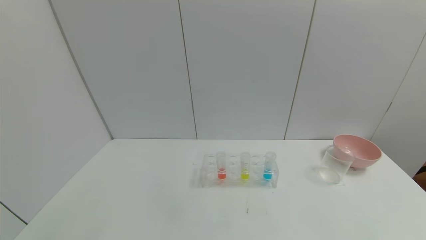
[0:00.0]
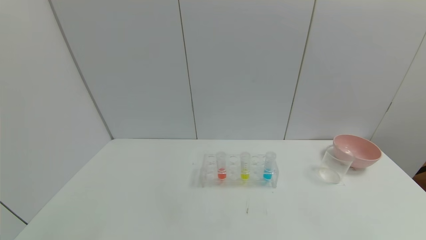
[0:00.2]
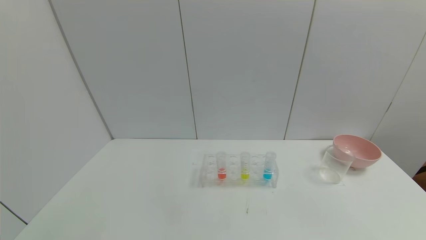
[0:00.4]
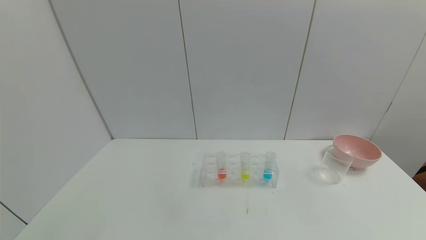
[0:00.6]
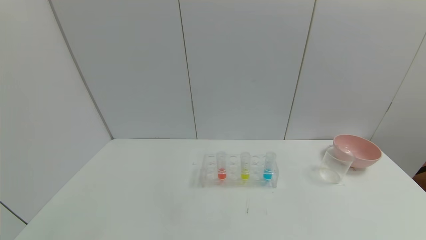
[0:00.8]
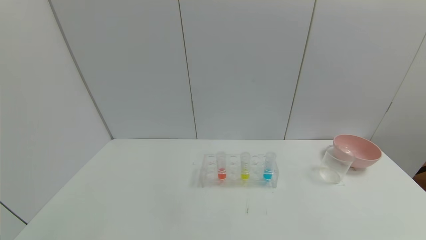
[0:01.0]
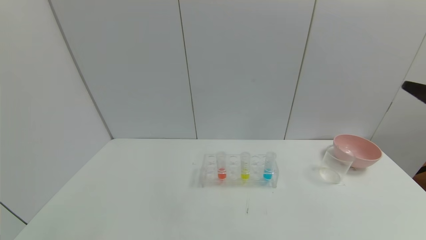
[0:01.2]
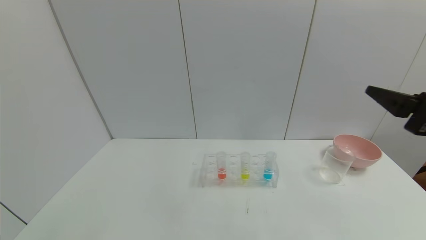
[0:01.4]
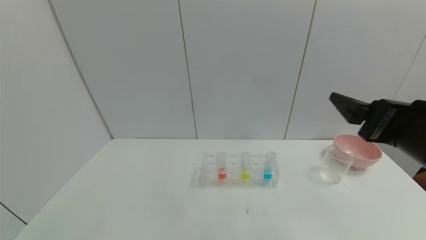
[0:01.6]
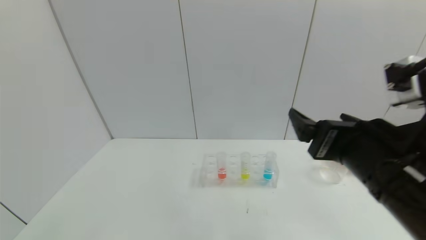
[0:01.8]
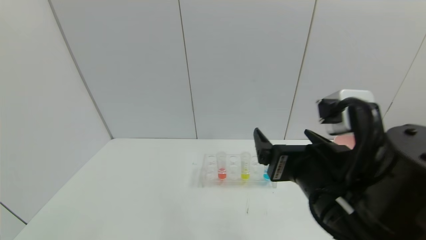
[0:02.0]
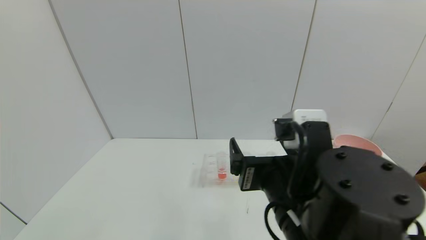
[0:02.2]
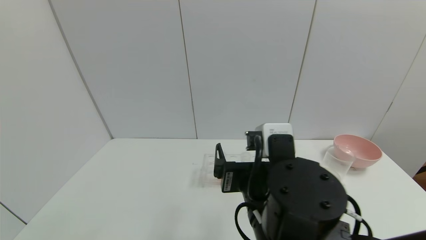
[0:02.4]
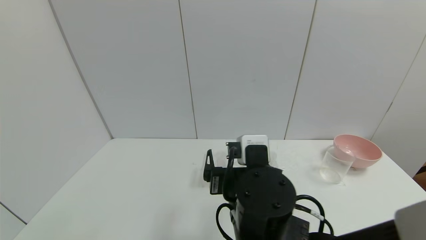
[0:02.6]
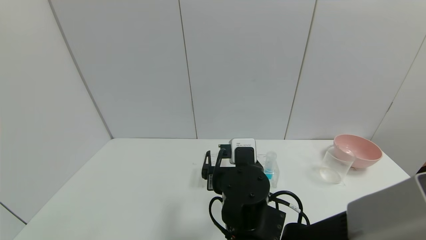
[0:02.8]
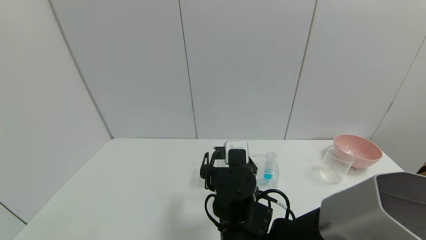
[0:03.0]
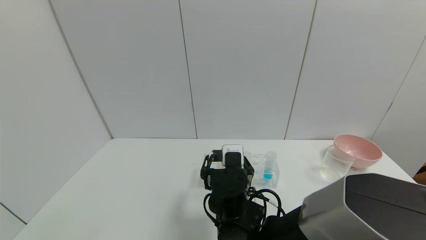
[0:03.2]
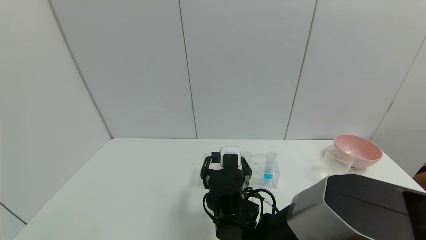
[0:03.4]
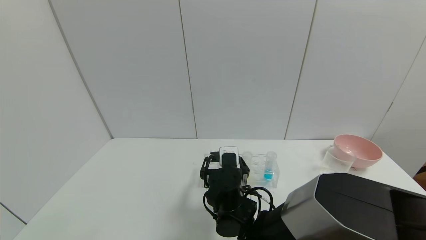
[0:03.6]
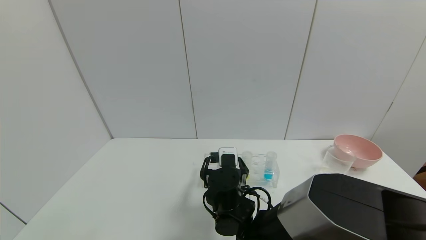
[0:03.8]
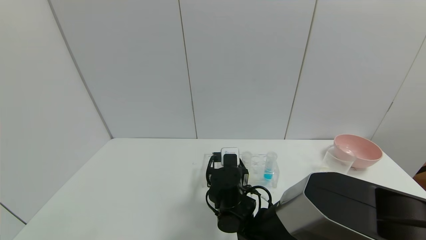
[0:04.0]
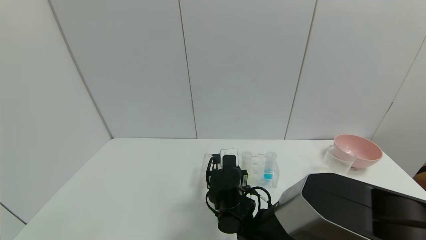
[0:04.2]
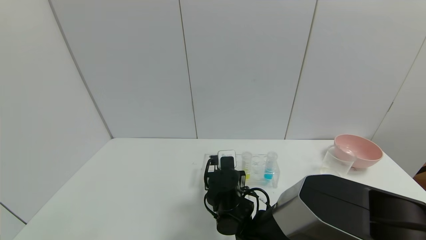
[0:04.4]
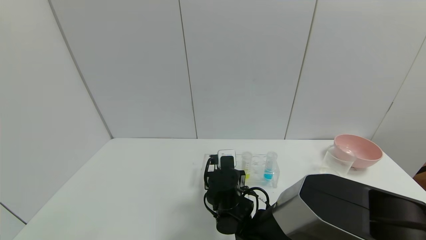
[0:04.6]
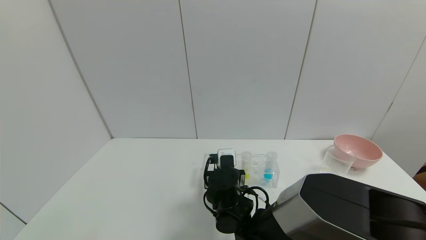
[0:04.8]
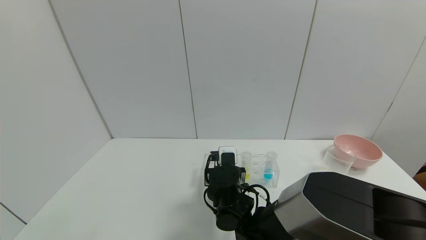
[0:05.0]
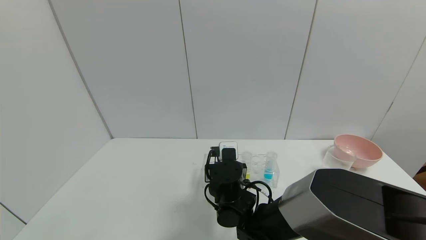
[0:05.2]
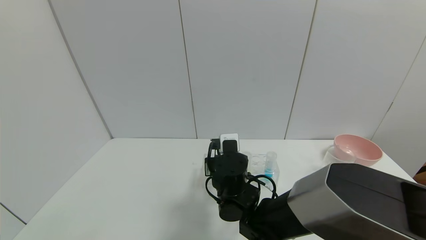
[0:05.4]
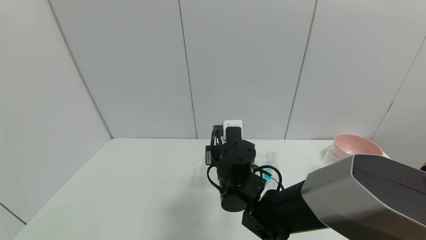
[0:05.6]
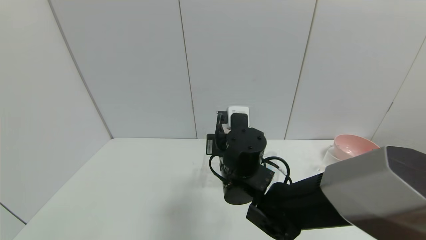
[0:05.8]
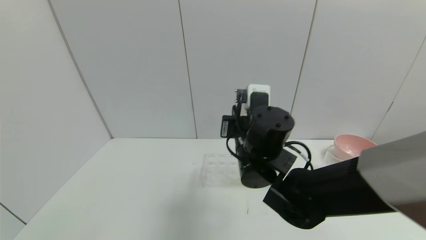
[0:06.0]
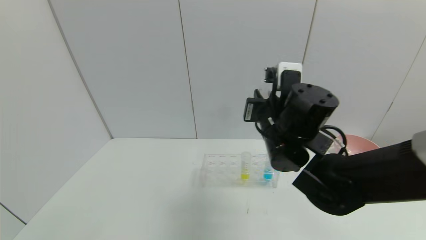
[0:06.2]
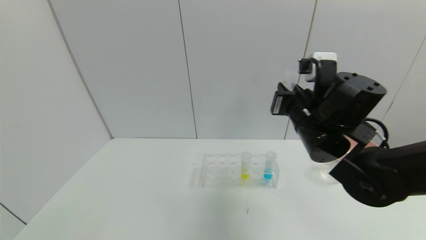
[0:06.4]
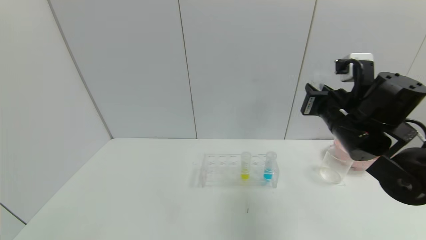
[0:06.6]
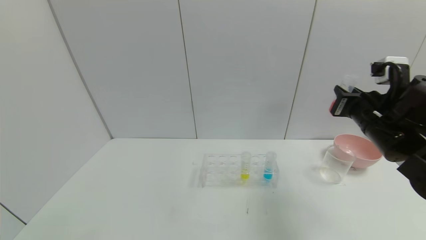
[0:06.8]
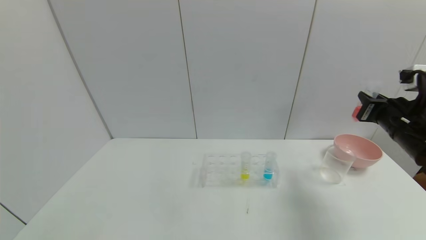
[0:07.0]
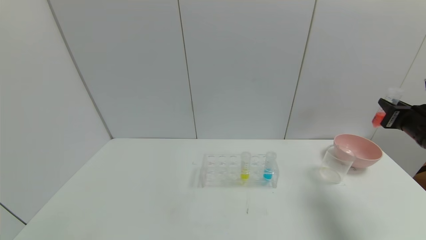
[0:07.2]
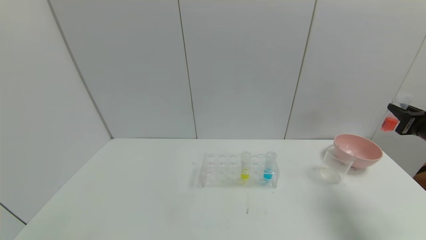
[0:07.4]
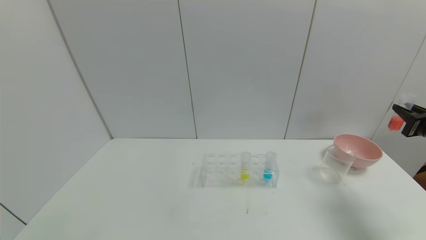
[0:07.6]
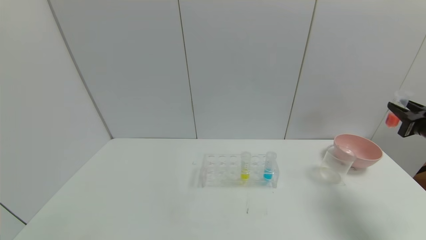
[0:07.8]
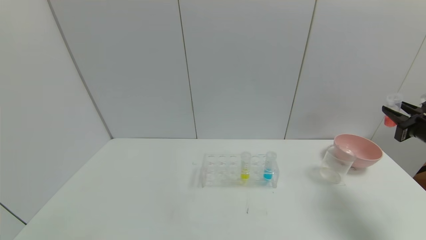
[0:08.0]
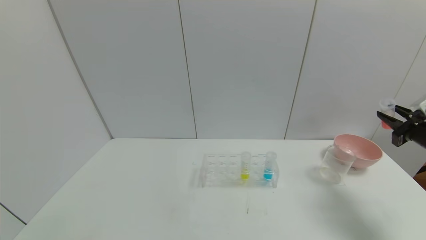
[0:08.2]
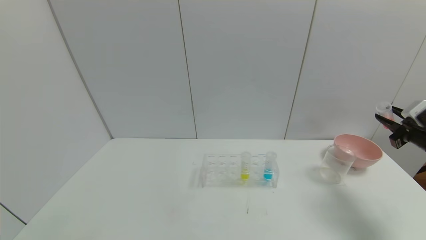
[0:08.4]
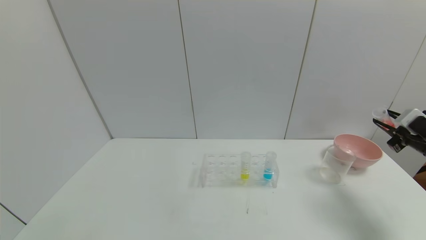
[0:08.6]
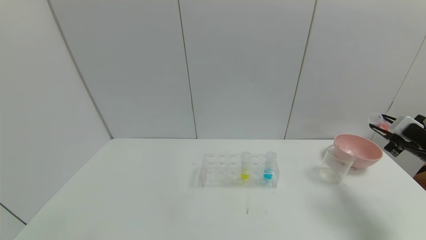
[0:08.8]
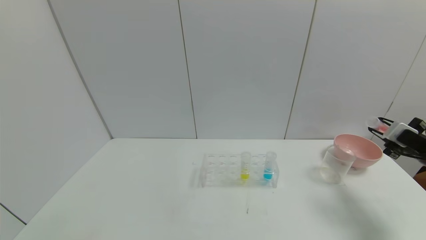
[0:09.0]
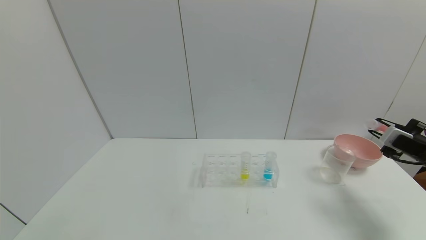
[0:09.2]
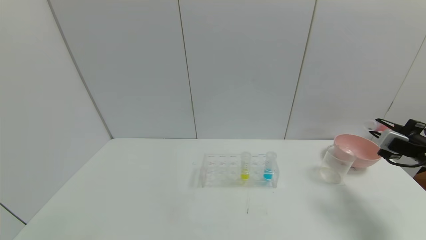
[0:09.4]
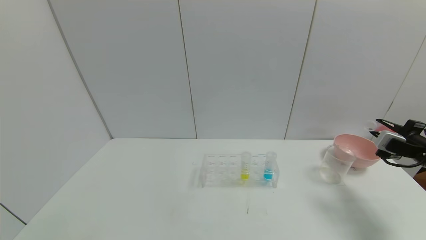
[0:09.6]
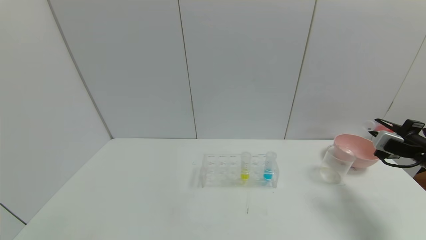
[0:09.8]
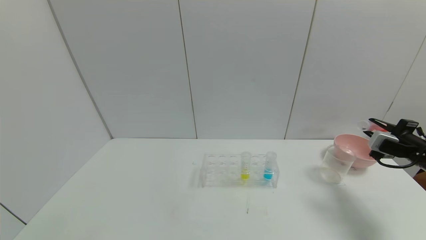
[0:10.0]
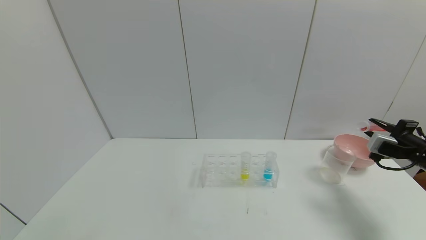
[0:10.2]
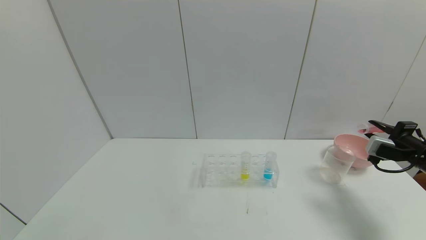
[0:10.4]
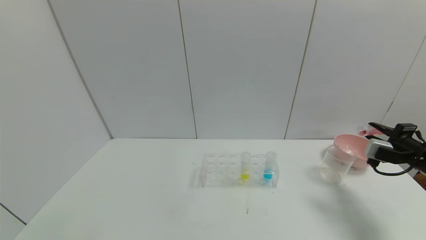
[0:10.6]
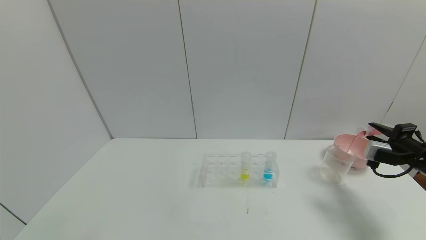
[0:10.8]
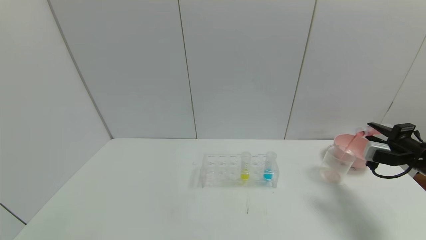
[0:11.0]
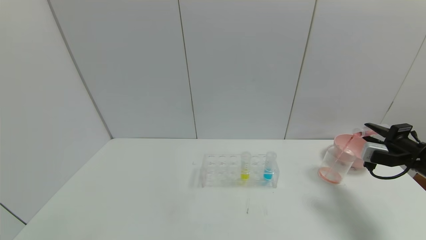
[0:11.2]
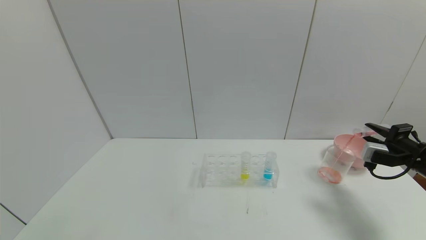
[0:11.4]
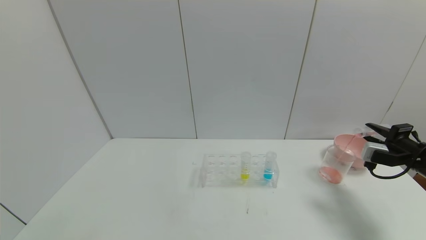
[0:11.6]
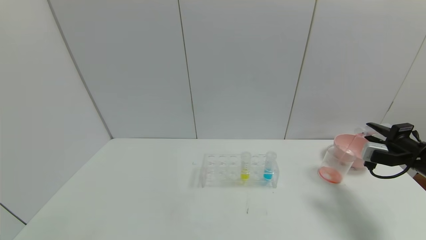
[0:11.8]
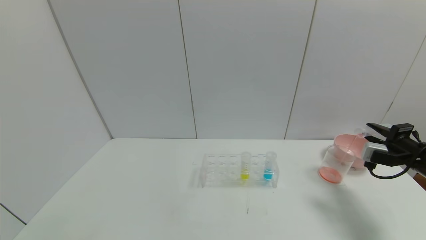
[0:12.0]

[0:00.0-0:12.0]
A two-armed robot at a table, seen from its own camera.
Task of the whole recording: pick up the test tube with yellow pigment and the test tube with red pigment by grippers and pour them into the beaker.
Step, 0:00.0 to 0:06.4: Pick up the test tube containing the red reagent with right gripper.
0:00.0 to 0:01.6: The right gripper travels forward, upward and to the left by about 30 cm.
0:01.6 to 0:03.0: The right gripper travels to the left and downward by approximately 25 cm.
0:03.0 to 0:04.4: The right gripper goes some 10 cm downward and forward, and closes up.
0:04.4 to 0:06.0: The right gripper is displaced upward by approximately 15 cm.
0:06.0 to 0:07.6: The right gripper shifts some 40 cm to the right.
0:07.6 to 0:09.0: The right gripper moves downward, some 5 cm.
0:10.4 to 0:12.0: The grippers make only small movements.

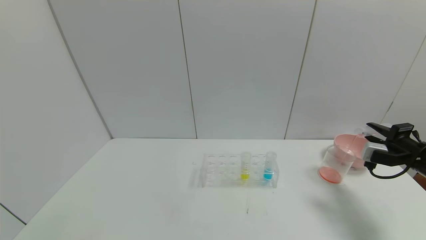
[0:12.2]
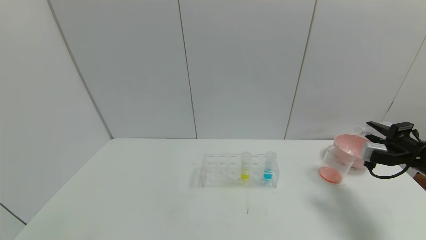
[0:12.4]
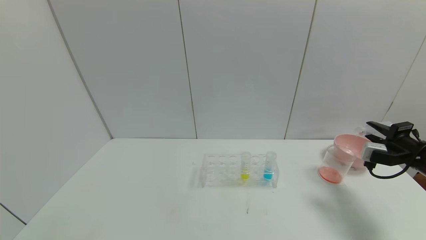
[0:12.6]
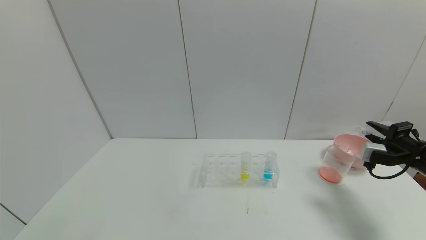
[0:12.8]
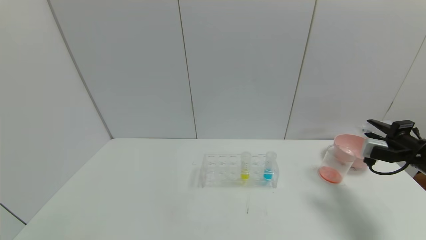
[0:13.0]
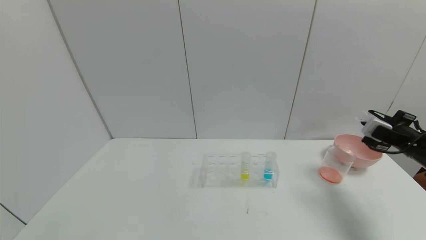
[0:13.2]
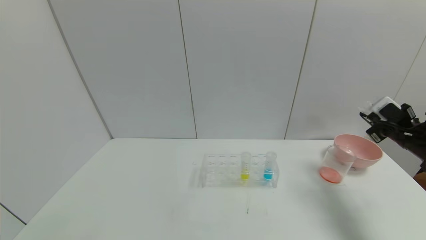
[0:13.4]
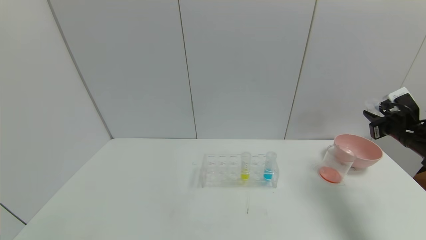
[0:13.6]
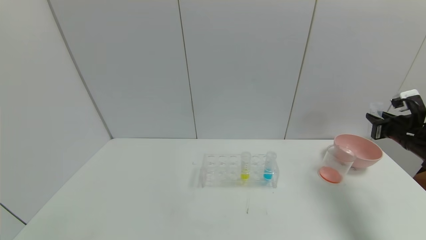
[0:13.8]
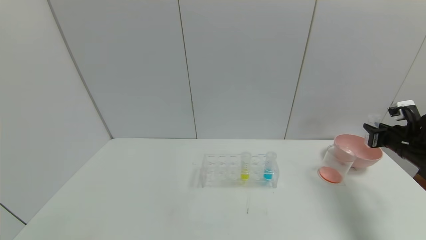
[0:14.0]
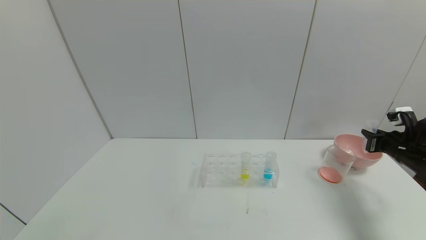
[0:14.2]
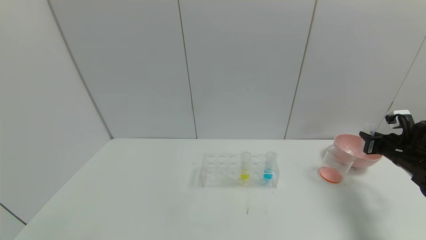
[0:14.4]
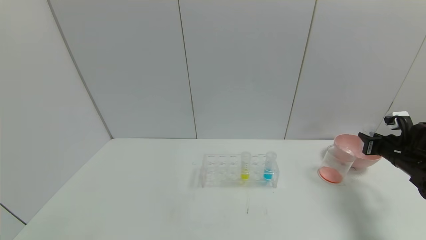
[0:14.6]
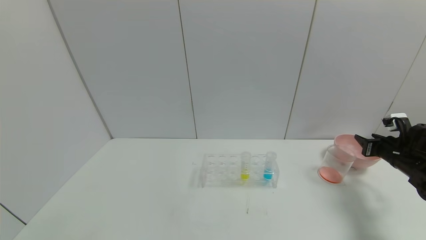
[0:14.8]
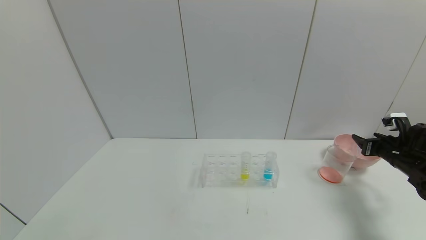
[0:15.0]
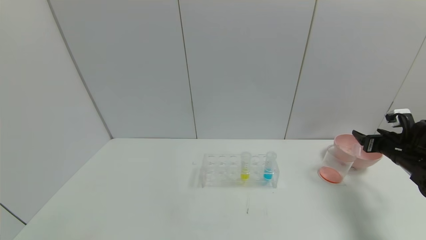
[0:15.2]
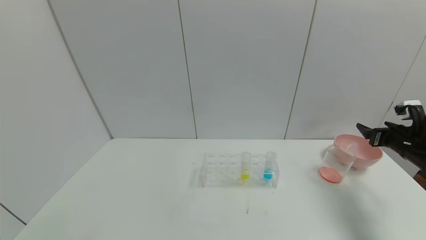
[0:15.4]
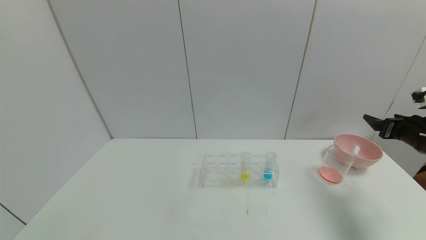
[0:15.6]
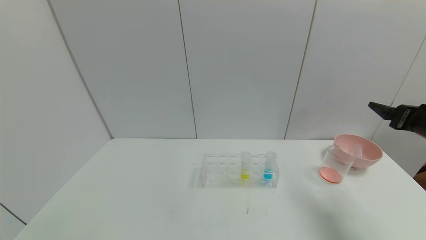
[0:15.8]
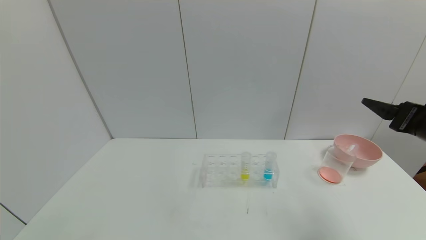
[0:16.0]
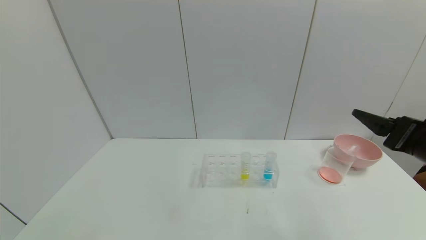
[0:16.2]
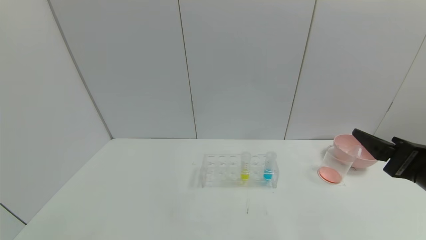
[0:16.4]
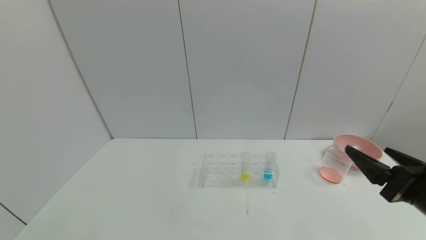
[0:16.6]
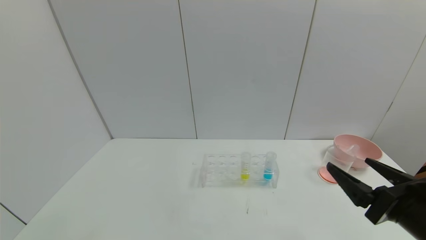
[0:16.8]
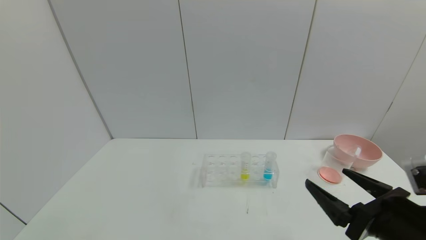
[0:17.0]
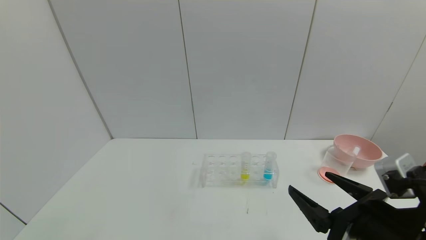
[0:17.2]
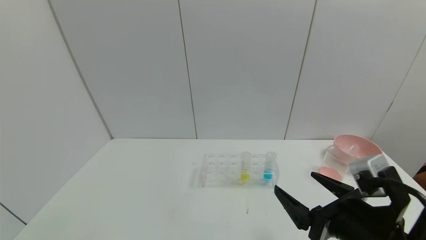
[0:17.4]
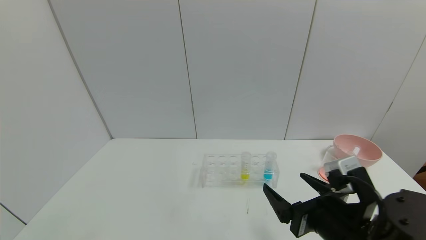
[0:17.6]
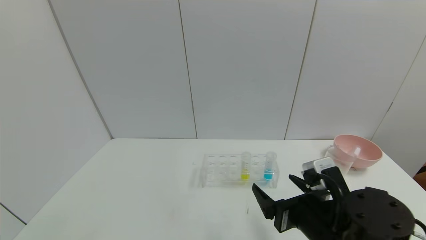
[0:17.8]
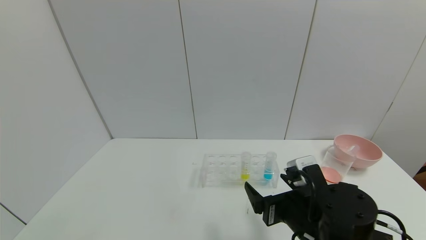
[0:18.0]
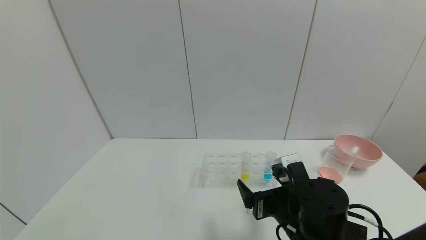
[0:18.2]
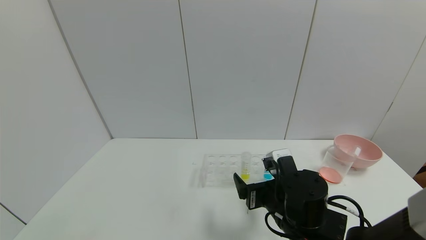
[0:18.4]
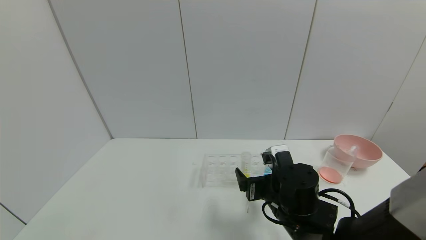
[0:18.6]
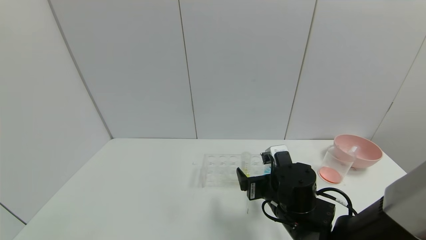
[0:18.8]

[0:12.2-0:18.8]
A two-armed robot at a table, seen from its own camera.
Task of the whole recording: pick up the test tube with yellow pigment and the test tube with red pigment by grippers and pour them into the beaker.
Step, 0:14.0 to 0:16.0: Place the test tube into the bowl with right gripper.
0:13.8 to 0:15.4: The right gripper opens up.
0:15.4 to 0:17.2: The right gripper goes about 30 cm to the left and backward.
0:17.2 to 0:18.8: The right gripper is displaced forward, to the left and downward by approximately 15 cm.
